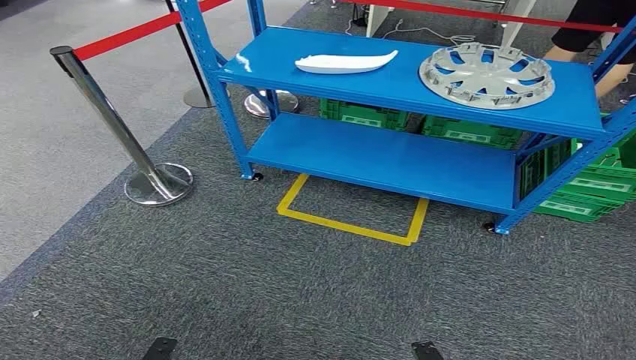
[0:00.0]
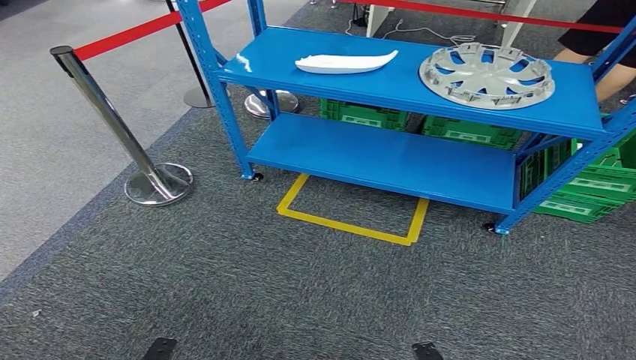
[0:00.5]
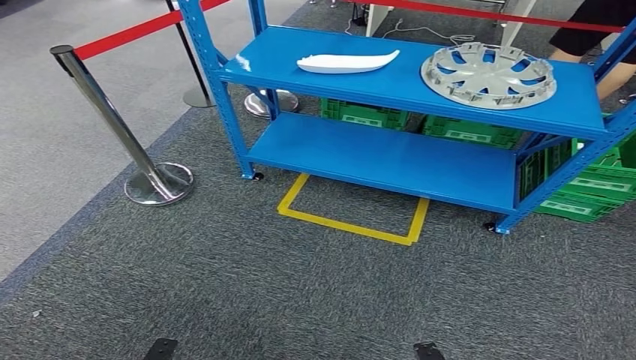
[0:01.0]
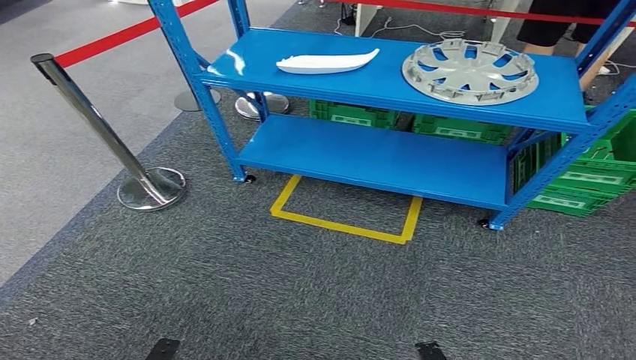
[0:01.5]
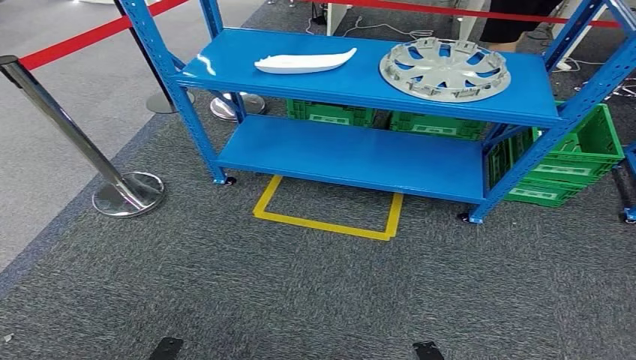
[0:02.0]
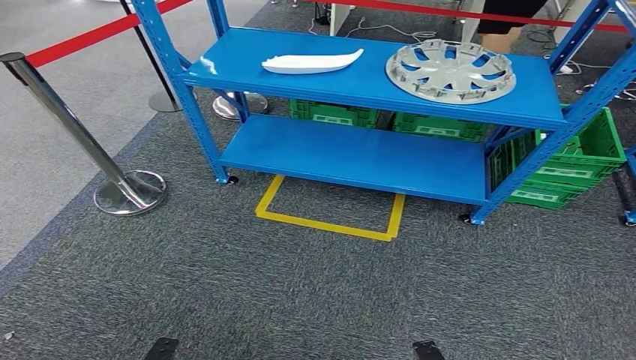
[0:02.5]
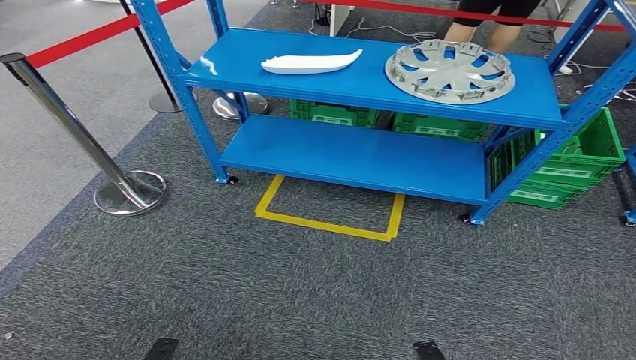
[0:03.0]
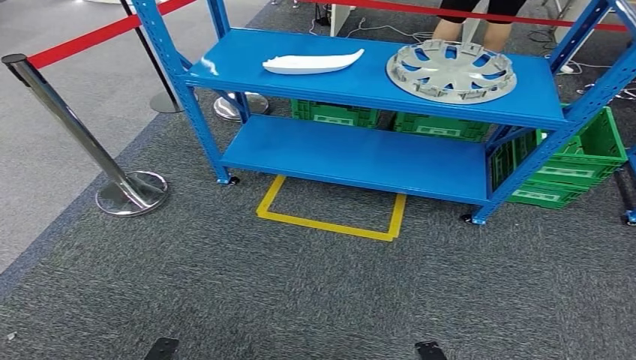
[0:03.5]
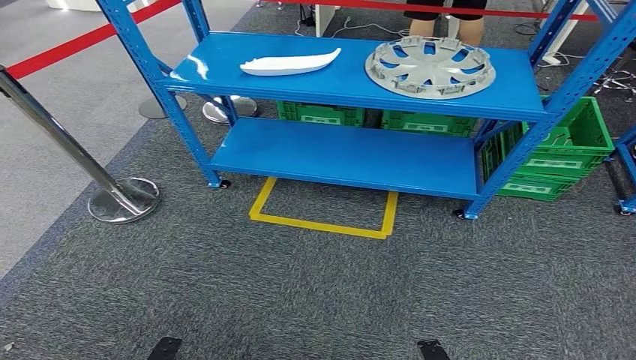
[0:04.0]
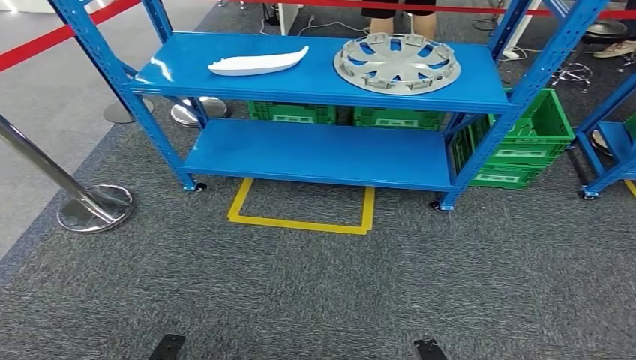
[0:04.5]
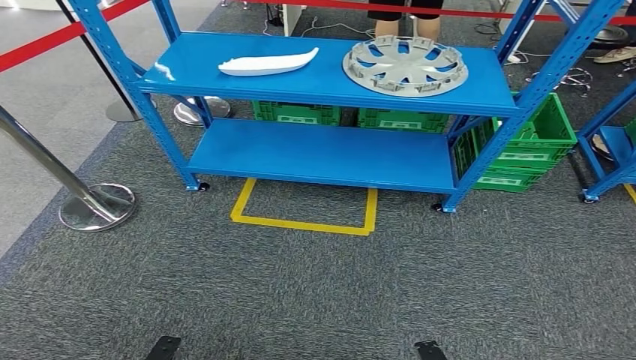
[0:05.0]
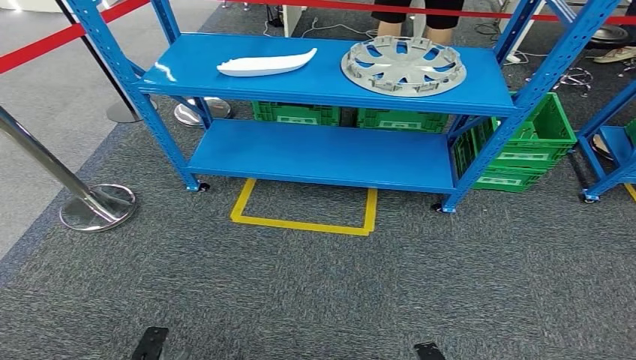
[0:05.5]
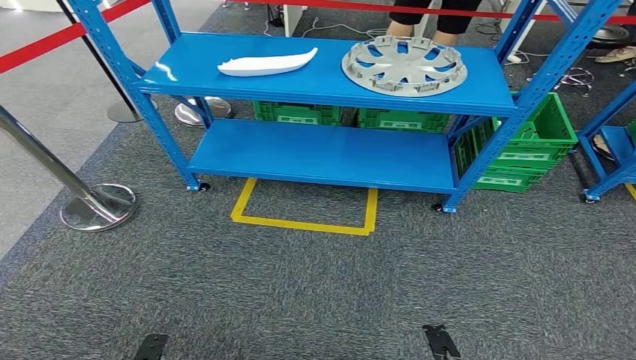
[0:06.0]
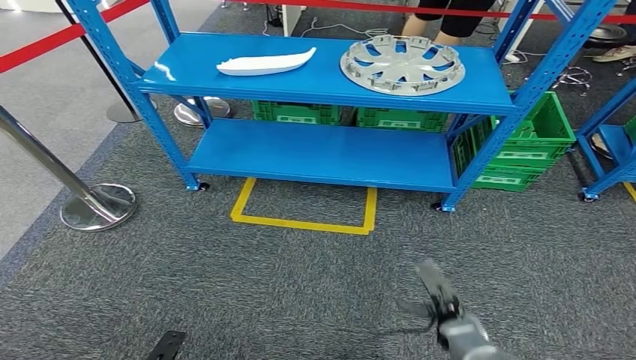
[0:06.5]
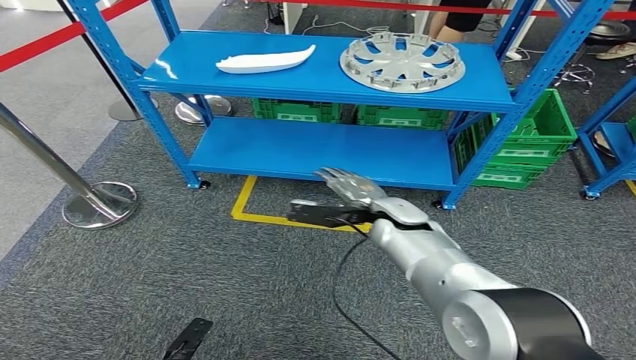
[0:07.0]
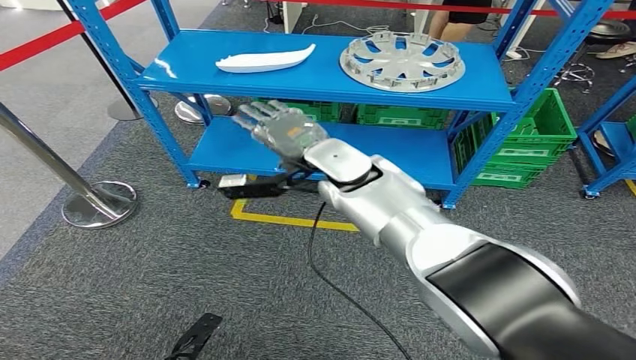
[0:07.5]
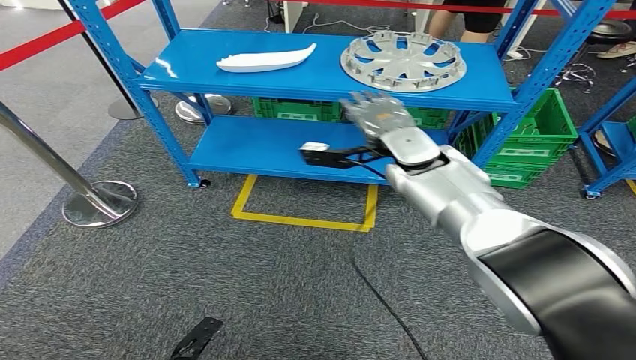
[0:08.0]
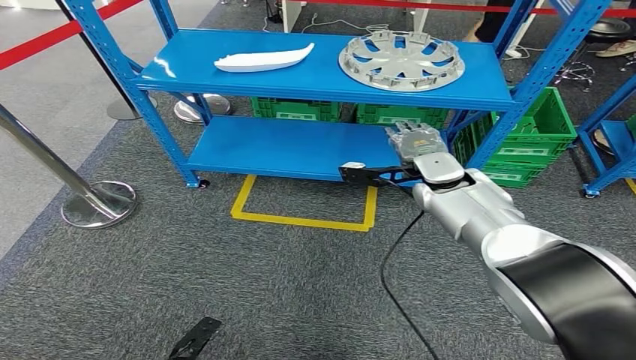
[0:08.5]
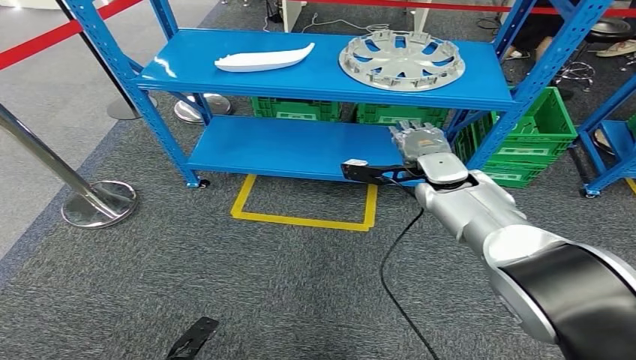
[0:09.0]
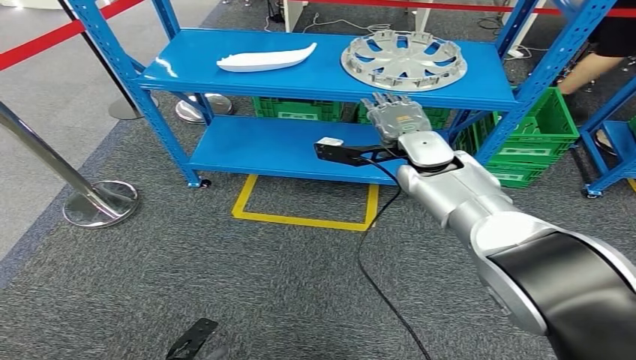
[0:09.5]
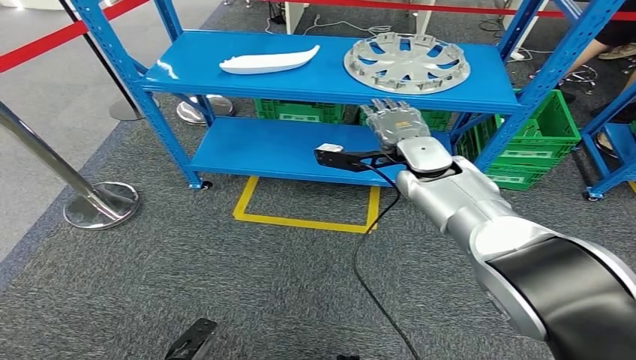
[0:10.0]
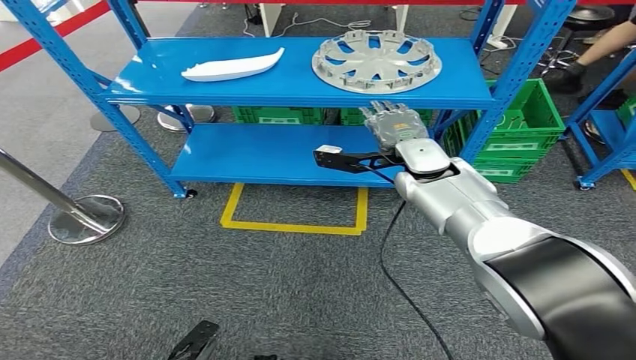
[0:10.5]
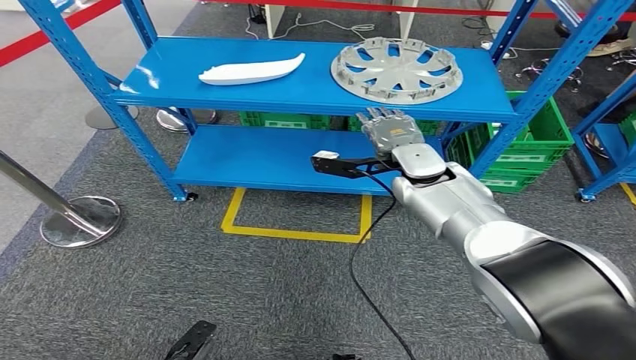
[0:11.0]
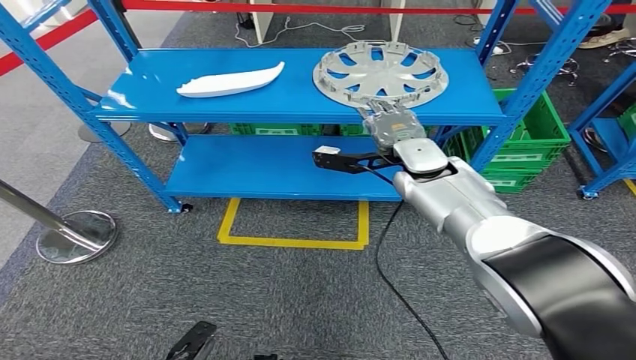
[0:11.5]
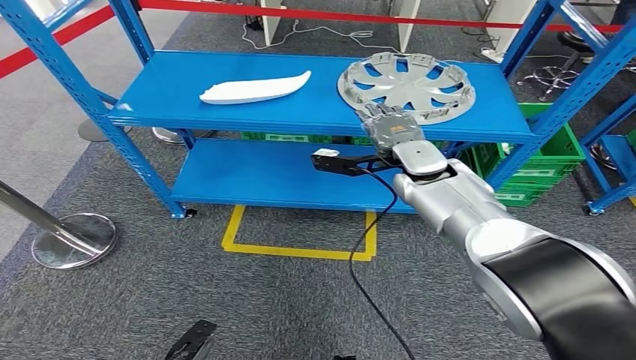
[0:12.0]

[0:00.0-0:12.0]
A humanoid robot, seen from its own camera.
0:02.0 to 0:04.0: Neither hand changes place.

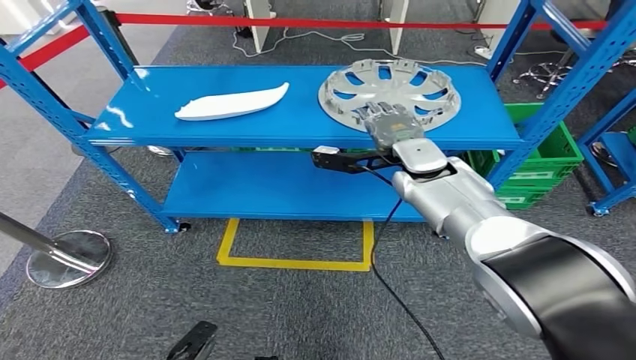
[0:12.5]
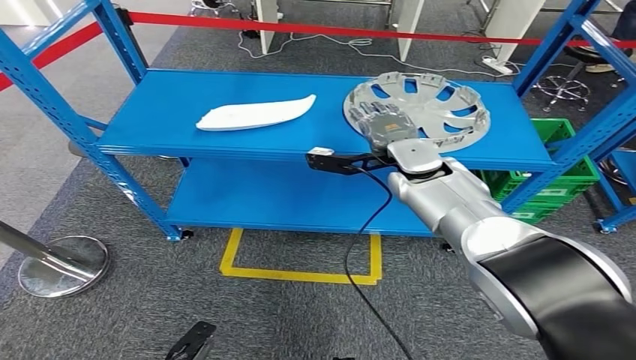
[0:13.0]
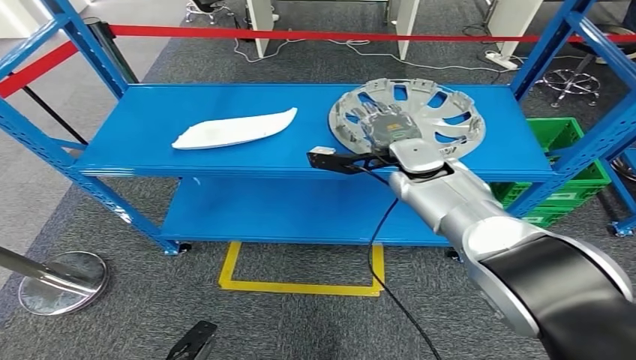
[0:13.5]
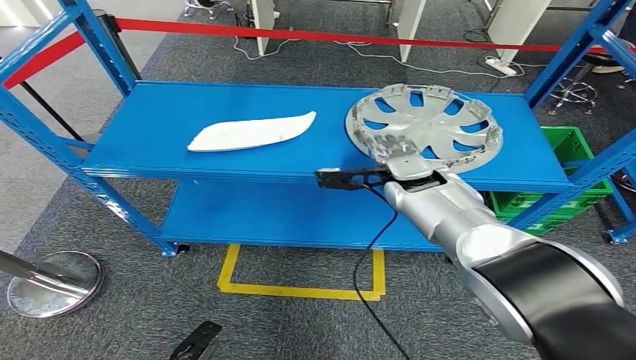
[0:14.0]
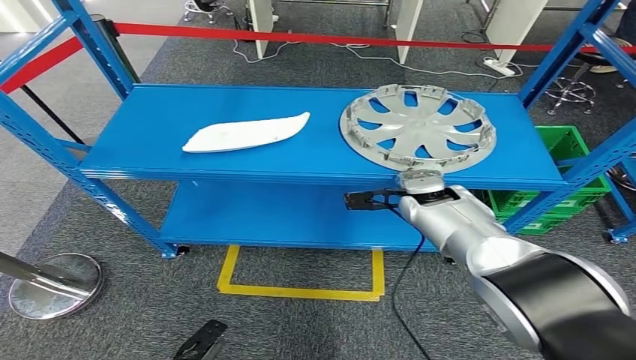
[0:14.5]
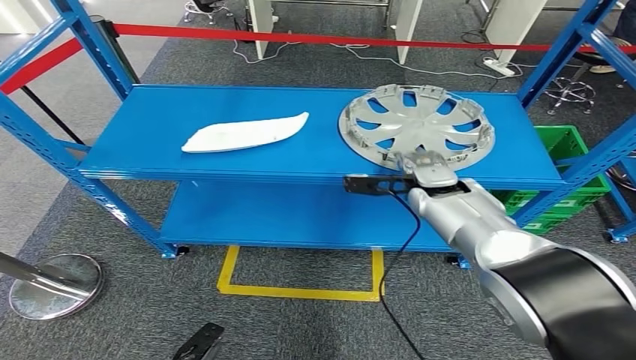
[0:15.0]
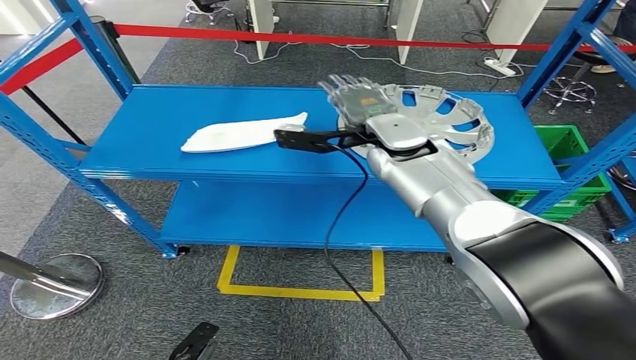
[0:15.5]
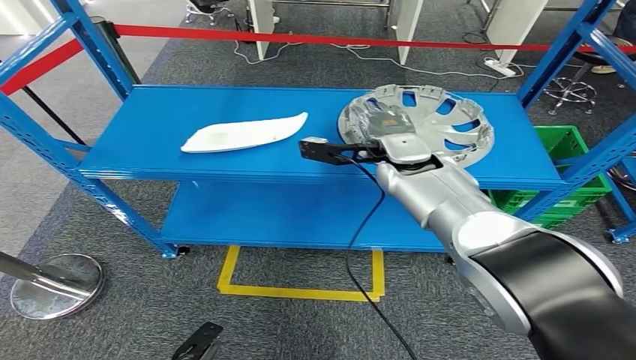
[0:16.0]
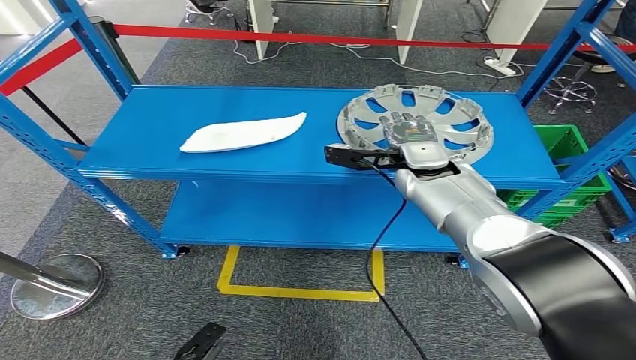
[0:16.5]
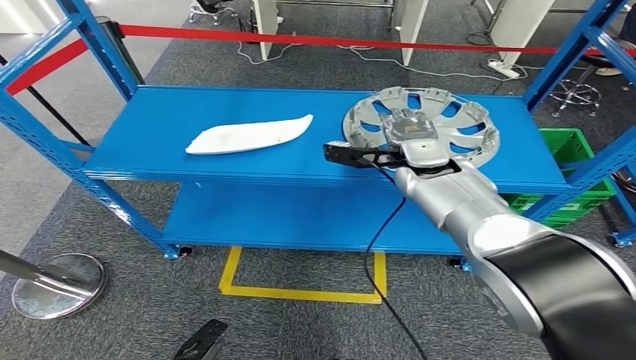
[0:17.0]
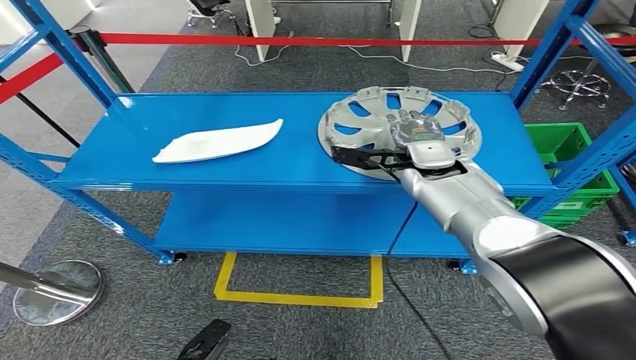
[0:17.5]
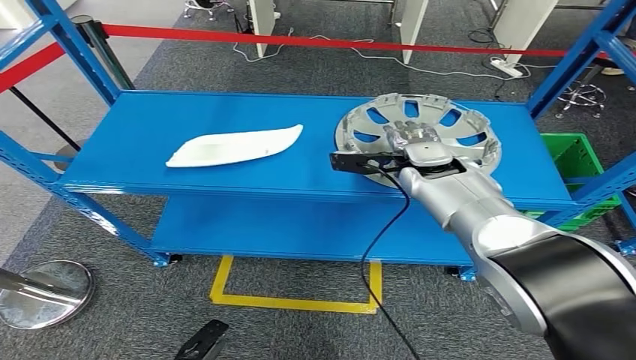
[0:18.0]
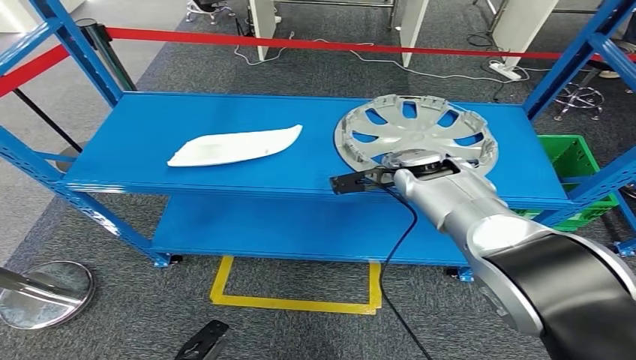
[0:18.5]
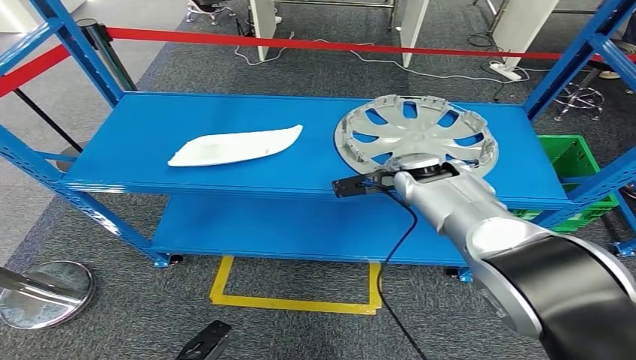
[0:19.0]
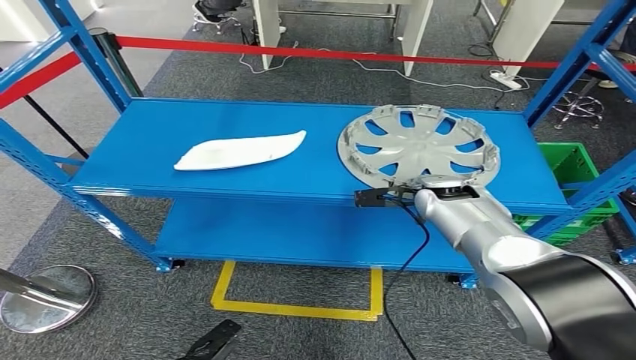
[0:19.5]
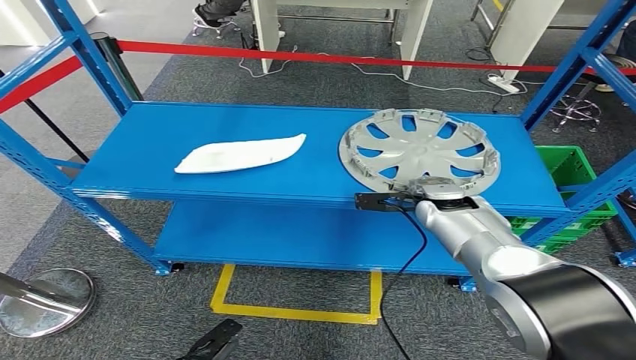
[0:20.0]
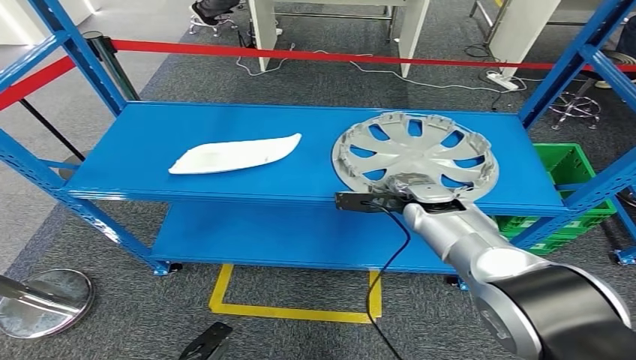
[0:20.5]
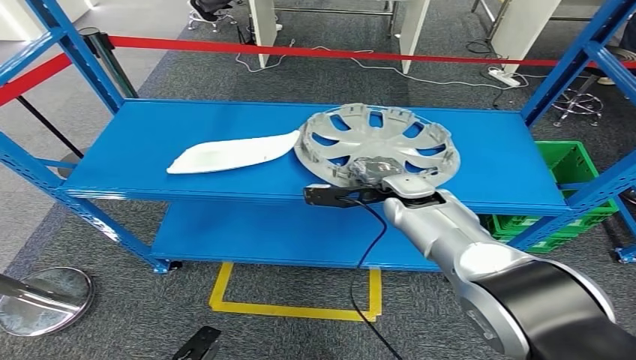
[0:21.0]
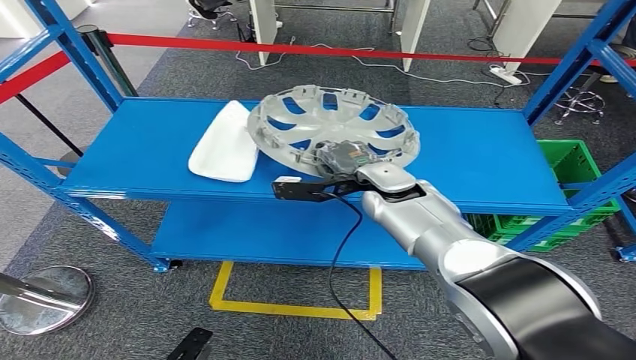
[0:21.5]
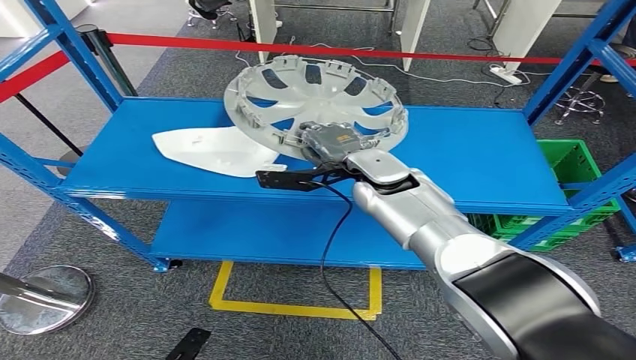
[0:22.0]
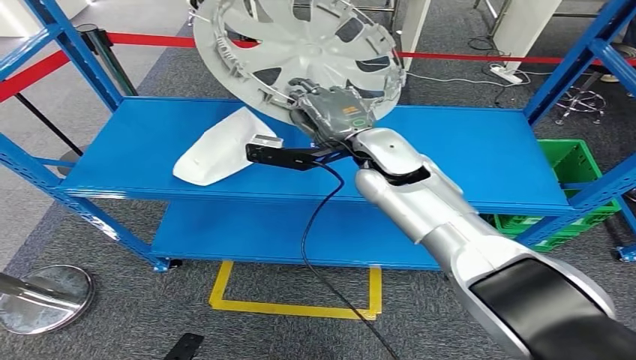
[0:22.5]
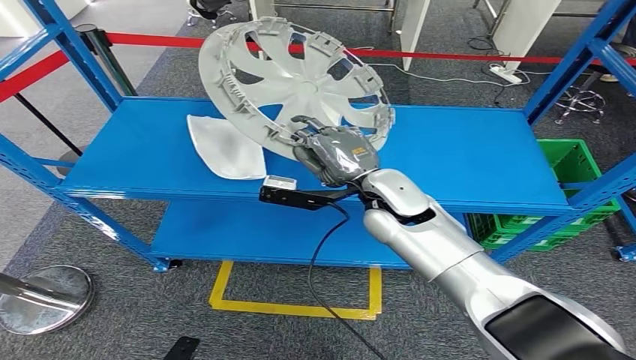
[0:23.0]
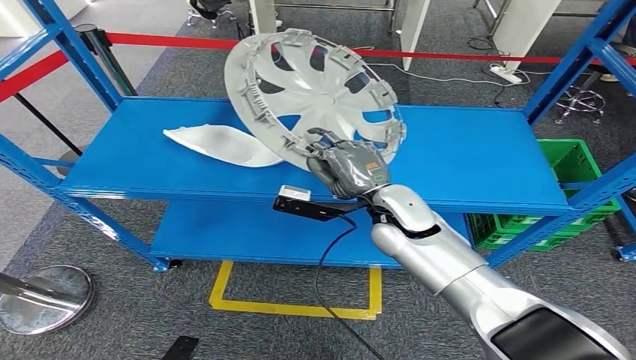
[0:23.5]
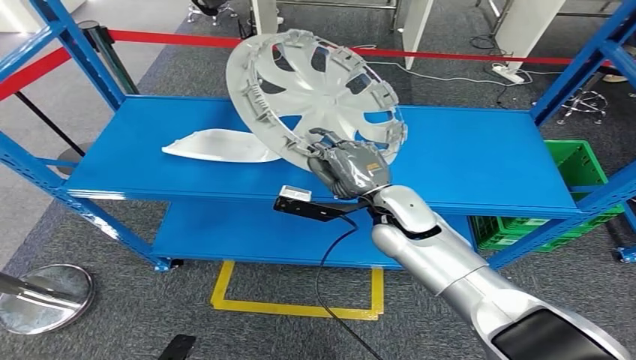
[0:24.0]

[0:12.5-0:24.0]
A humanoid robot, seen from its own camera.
Step, 0:12.5 to 0:23.5: Pick up the small component from the shelf.
0:14.5 to 0:16.5: The right hand shifts some 5 cm upward.
